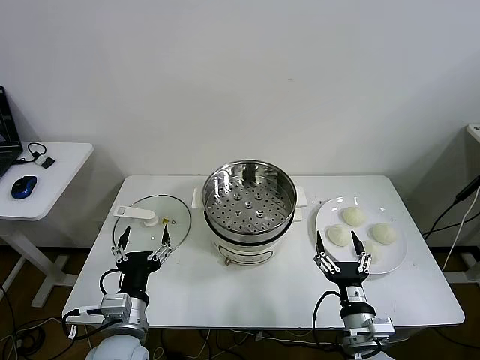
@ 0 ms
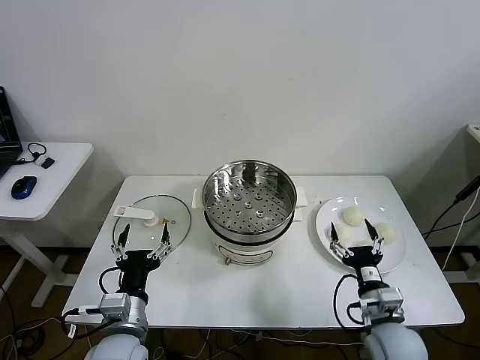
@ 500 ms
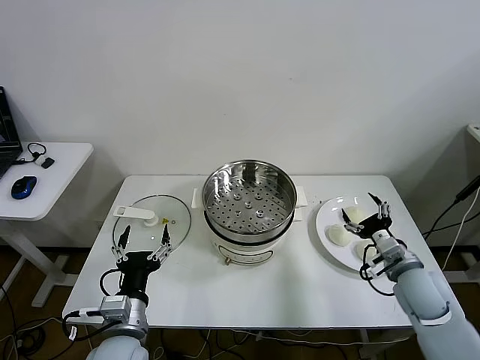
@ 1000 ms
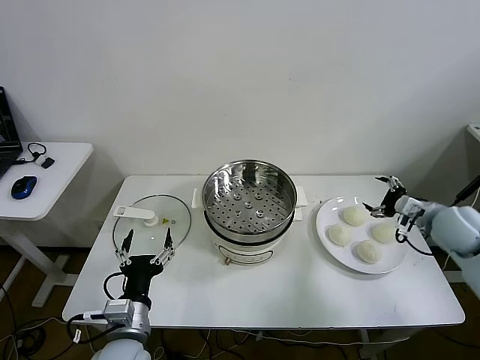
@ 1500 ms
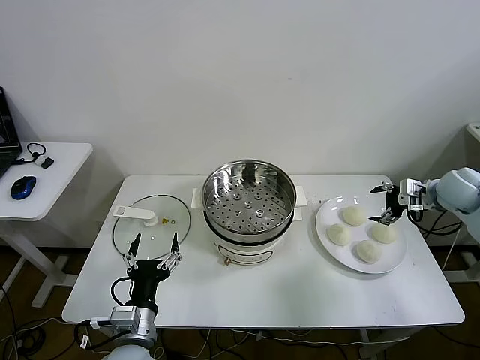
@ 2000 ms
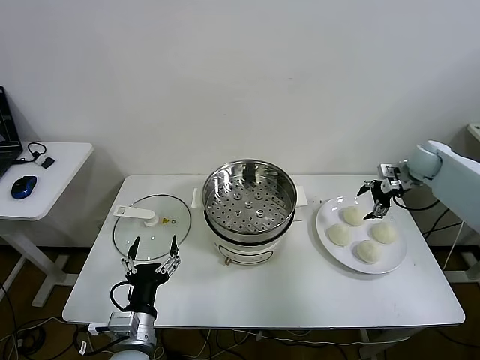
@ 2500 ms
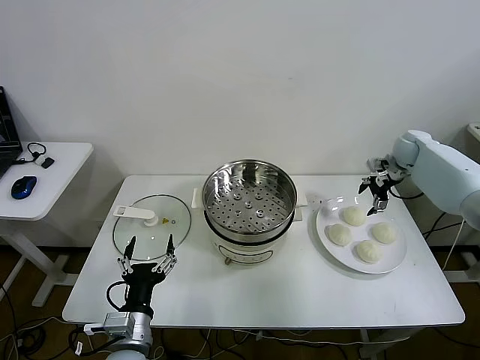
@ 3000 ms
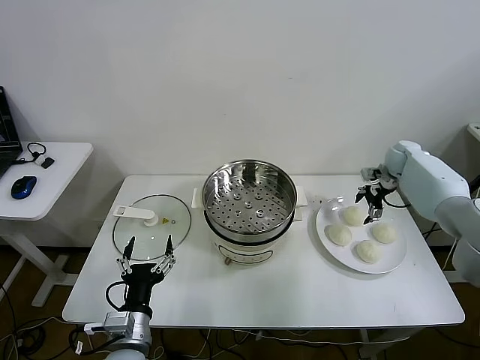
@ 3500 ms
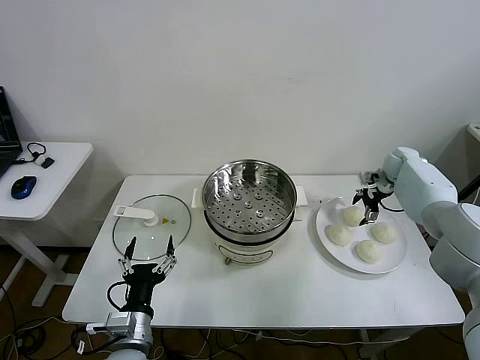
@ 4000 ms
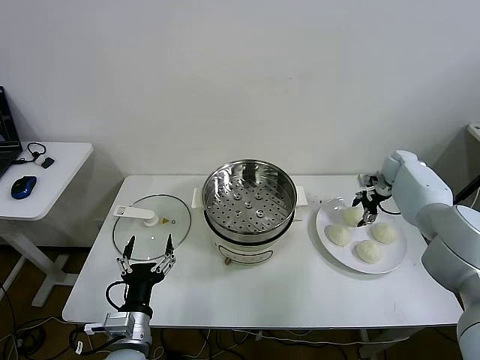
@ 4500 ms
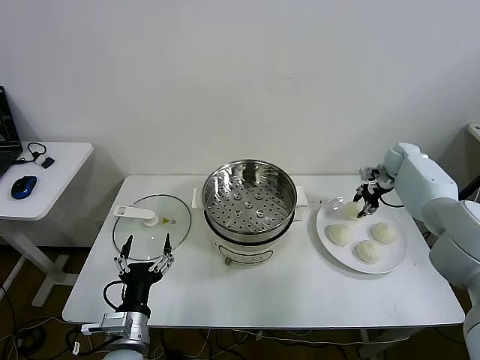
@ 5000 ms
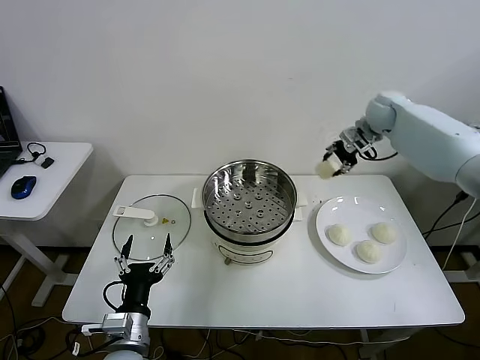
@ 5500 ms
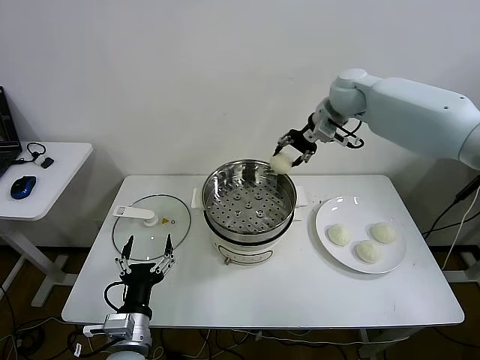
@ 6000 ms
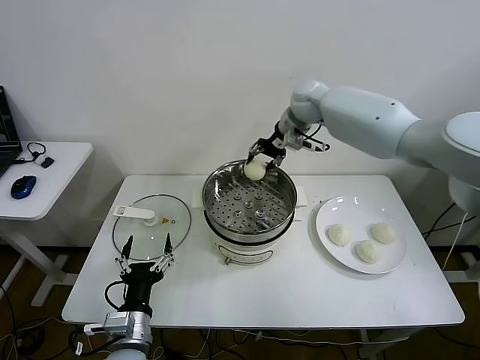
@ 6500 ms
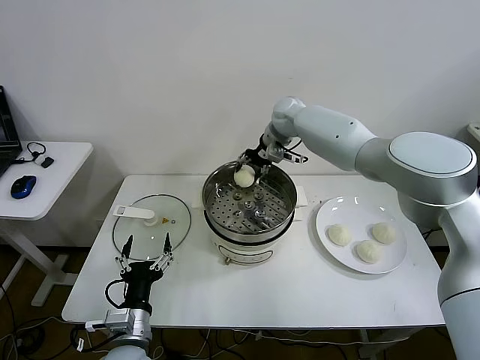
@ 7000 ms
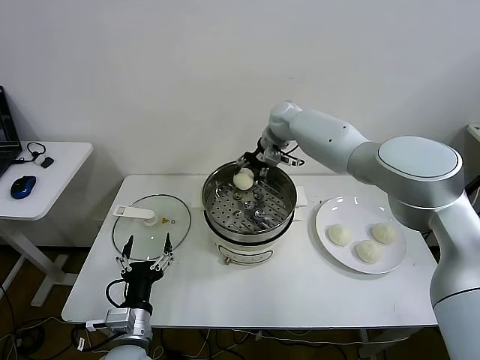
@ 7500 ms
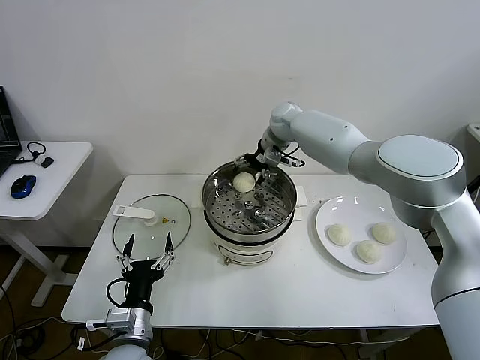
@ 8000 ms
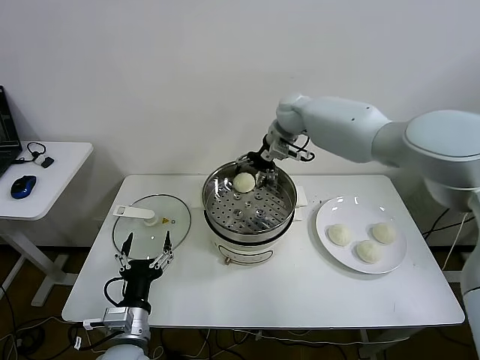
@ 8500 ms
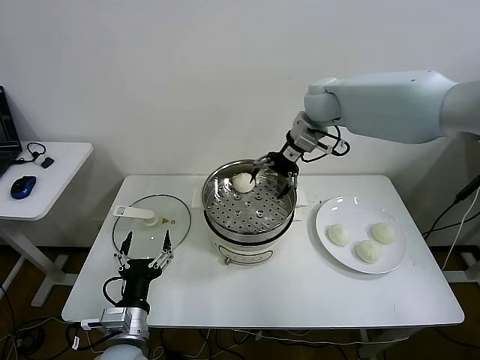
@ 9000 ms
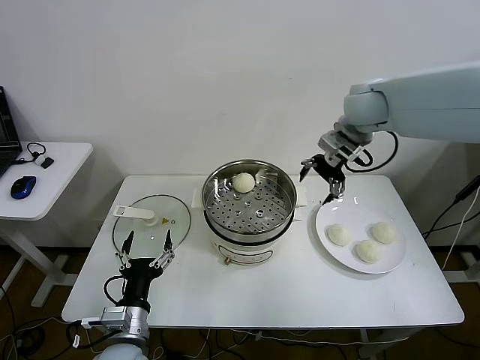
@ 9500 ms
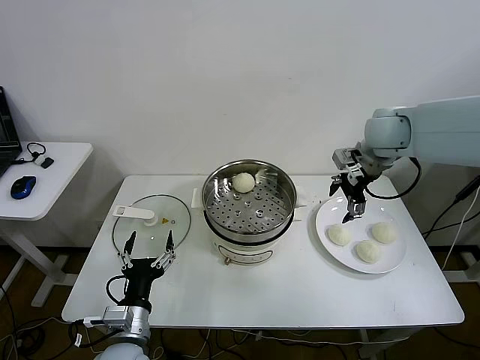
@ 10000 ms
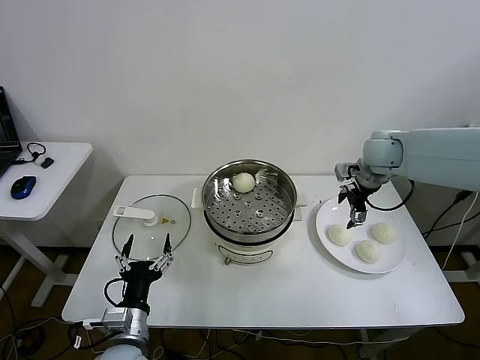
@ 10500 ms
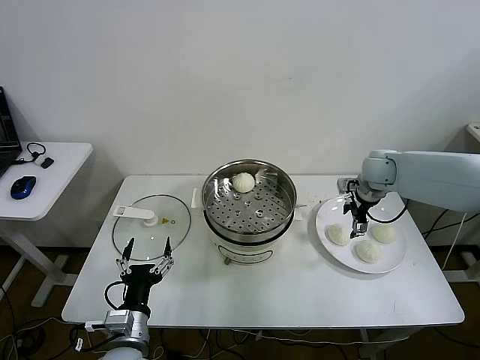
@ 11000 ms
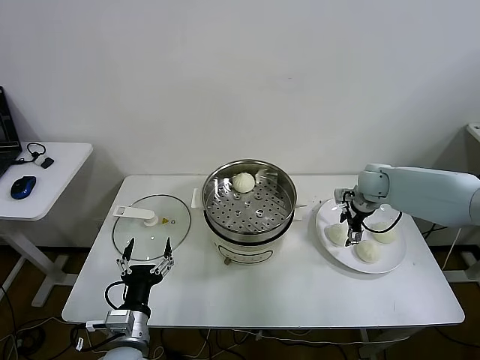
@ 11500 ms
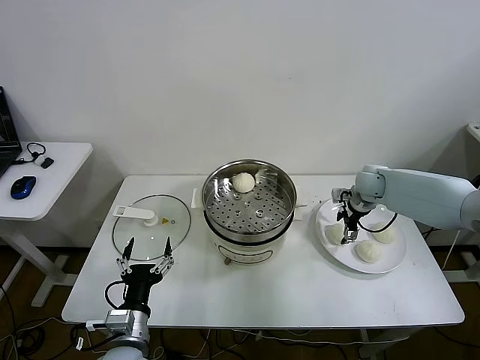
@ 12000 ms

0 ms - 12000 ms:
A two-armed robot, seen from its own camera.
Step, 0 ms - 4500 ms: Grasp the baozi in the plate with right gripper.
Step, 5000 ms - 8000 ms: Place the baozi on the steamer with right gripper.
2000 ms - 4000 ms: The right gripper travels forward and downward by about 15 cm.
4000 ms - 6000 ms: The right gripper travels to the left and upward by roughly 30 cm, and closes up.
6000 ms - 8000 ms: The right gripper goes about 15 cm to the left and downward, and opens its fingers.
8000 ms - 10000 ms: The right gripper is displaced to the right and backward by about 25 cm.
10000 ms - 12000 ms: The right gripper goes some 20 cm downward.

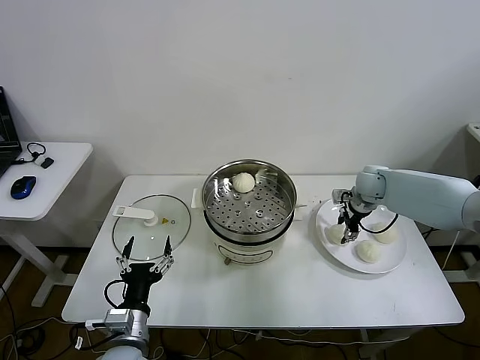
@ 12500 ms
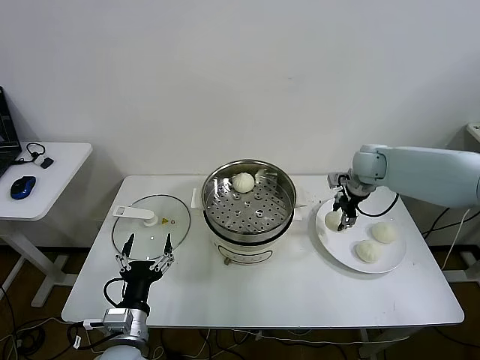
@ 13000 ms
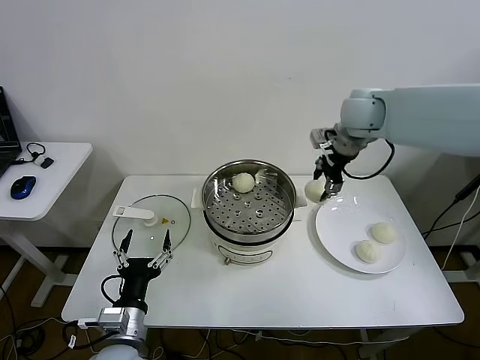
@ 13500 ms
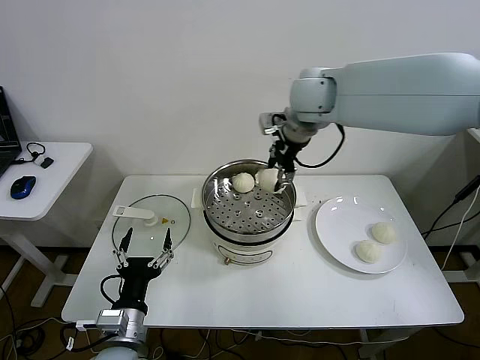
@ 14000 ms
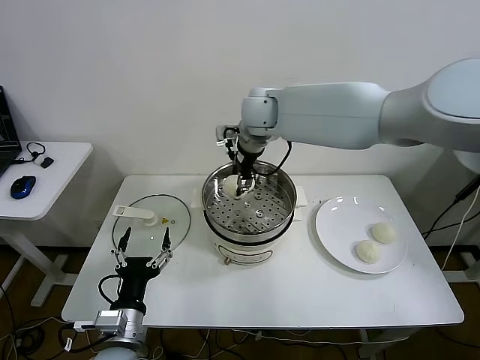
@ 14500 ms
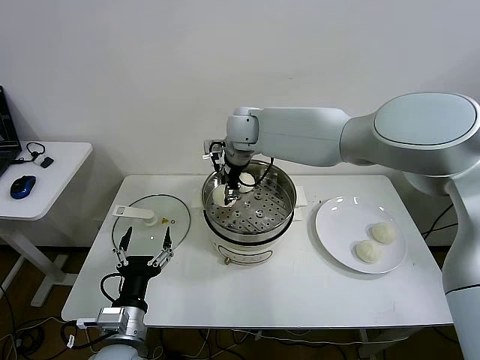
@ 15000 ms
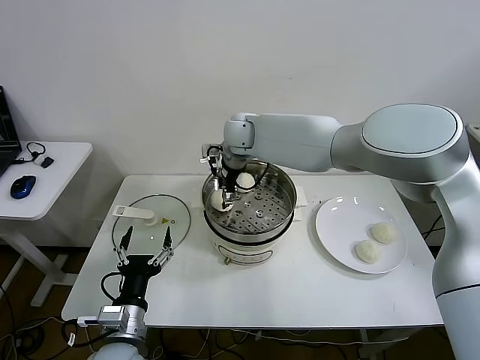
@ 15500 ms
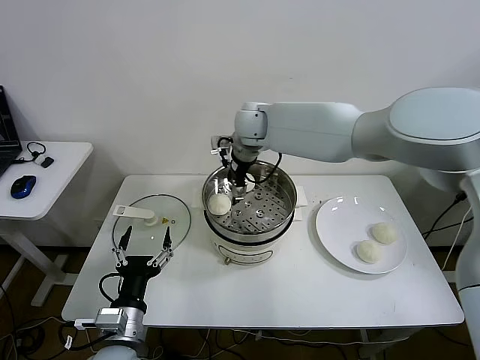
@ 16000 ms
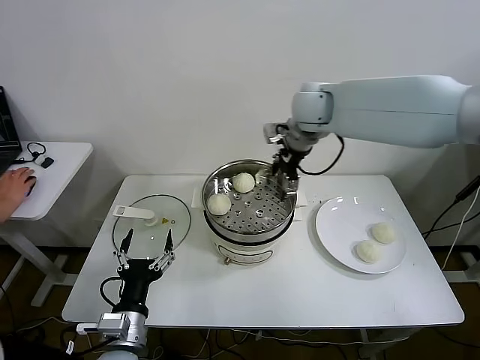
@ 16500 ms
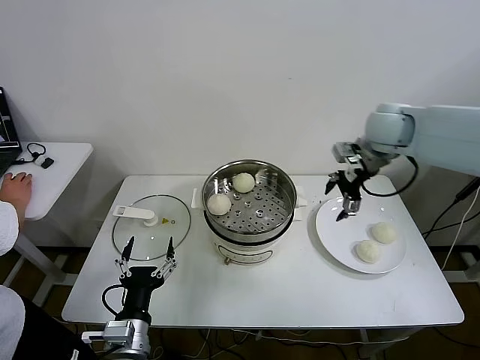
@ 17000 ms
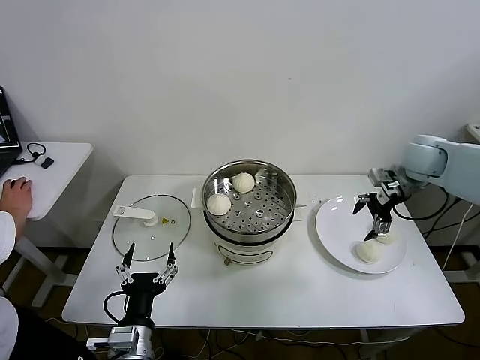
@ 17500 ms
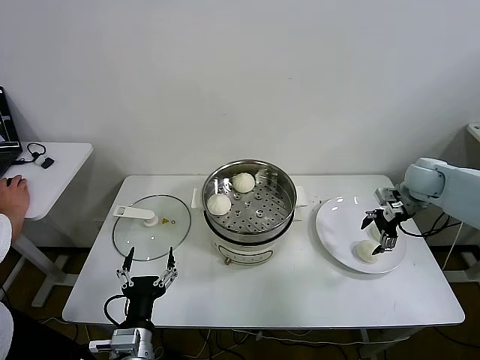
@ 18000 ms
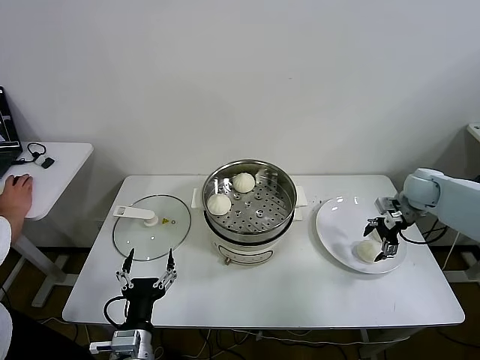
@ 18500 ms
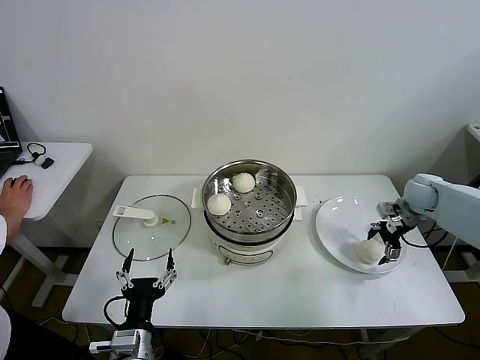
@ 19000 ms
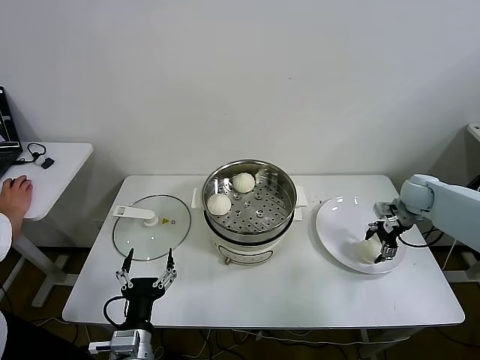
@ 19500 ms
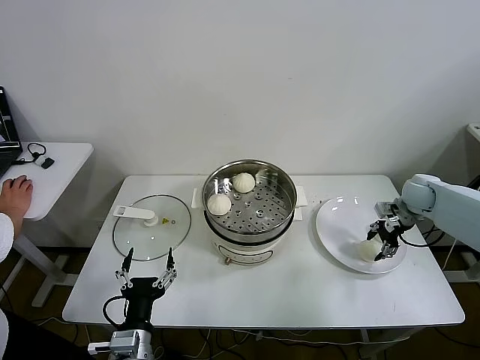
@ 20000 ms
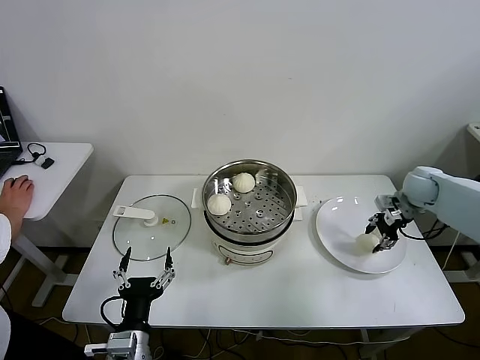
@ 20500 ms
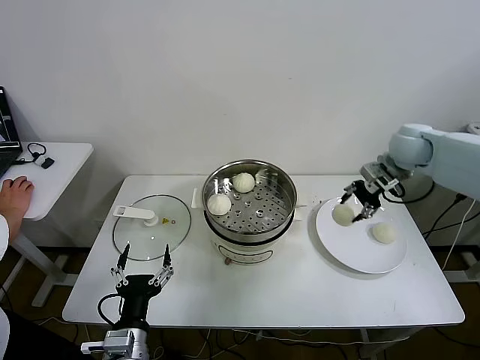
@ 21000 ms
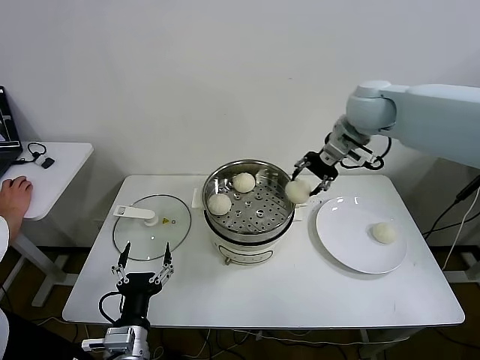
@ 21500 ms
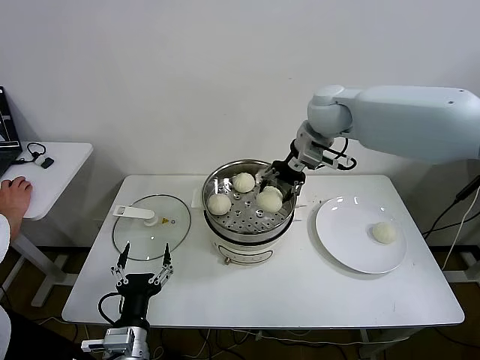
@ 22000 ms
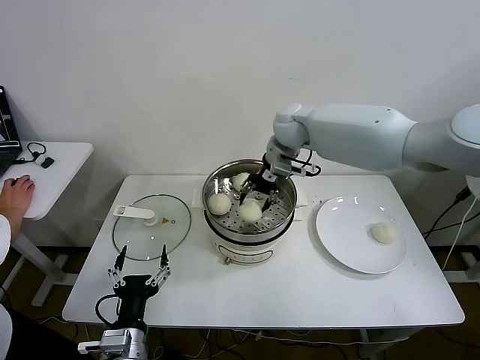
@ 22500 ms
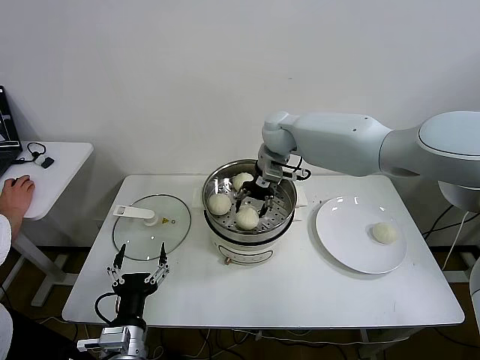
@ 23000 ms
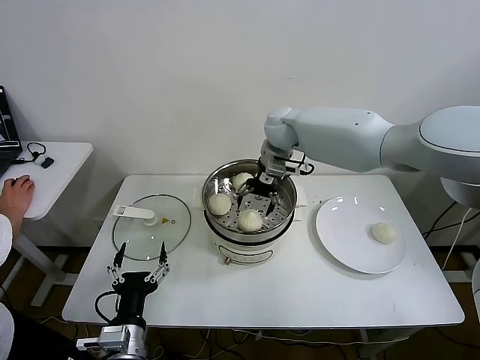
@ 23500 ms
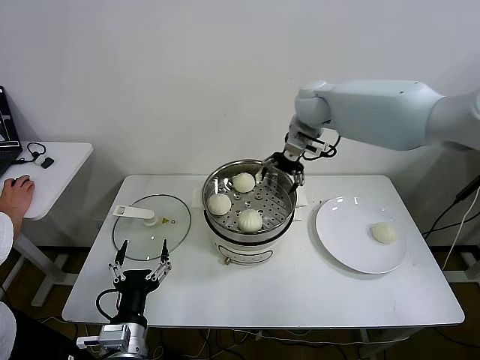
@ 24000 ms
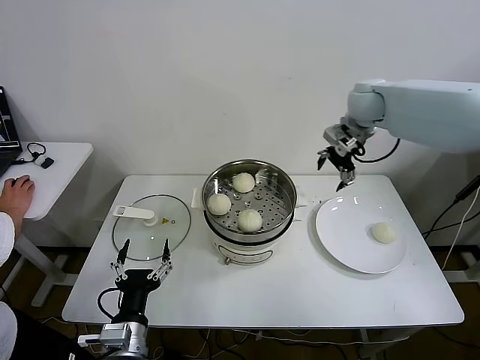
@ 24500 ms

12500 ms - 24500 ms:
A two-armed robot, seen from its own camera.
Step, 13000 ms - 15500 ms: Place the baozi on the steamer with right gripper.
Step, 16500 ms - 20000 ms: Grasp the baozi in the plate with right gripper.
Step, 20500 ms - 23500 ms: Place the baozi on the steamer with right gripper.
12500 ms - 14500 ms: The right gripper shifts approximately 35 cm to the left and upward.
14500 ms - 16500 ms: The right gripper goes some 10 cm to the right, and opens.
16500 ms - 18500 ms: The right gripper travels to the right and downward by some 35 cm.
18500 ms - 20500 ms: The right gripper closes.
20500 ms - 22500 ms: The right gripper moves to the left and upward, approximately 35 cm.
22500 ms - 24500 ms: The right gripper travels to the right by some 15 cm, and opens.

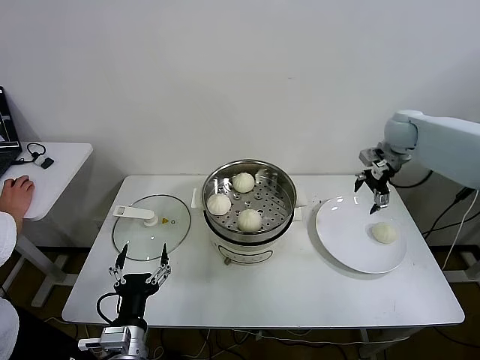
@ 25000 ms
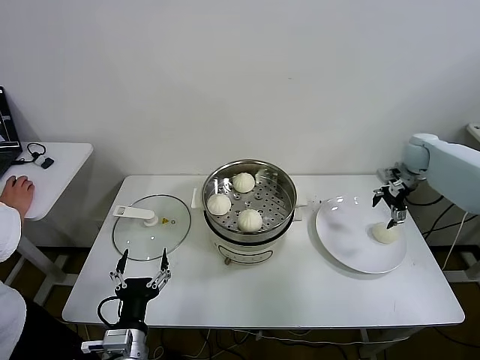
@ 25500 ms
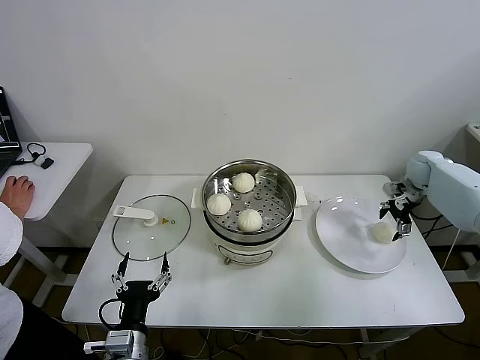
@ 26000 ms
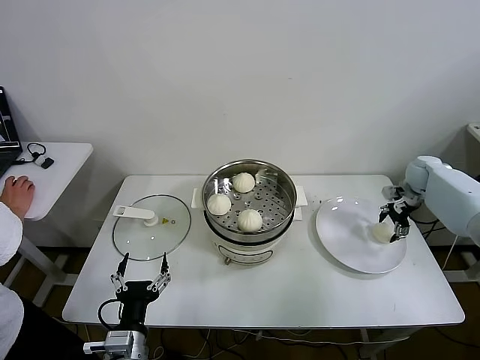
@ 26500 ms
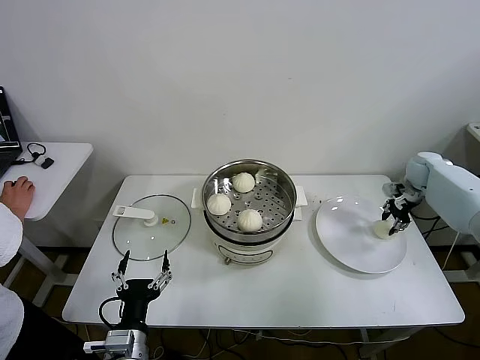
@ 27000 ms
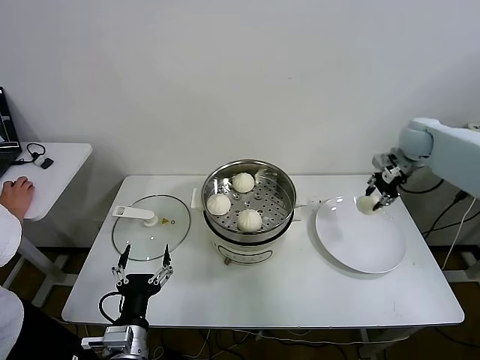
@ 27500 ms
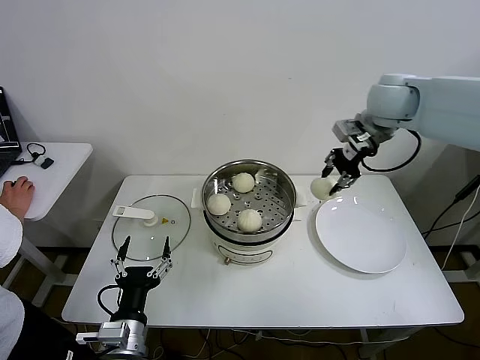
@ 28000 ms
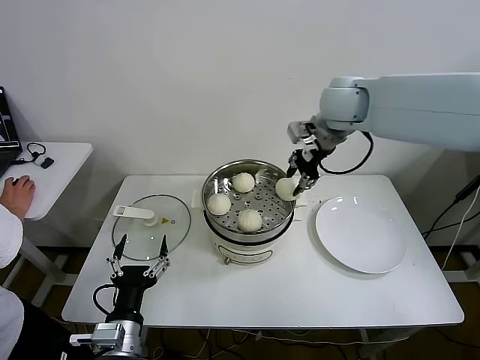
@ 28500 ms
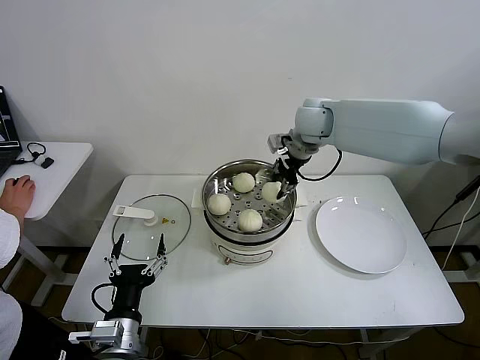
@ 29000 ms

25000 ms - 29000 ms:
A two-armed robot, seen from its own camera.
Step, 25000 ms - 26500 ms: Grasp the baozi in the plate with right gripper.
25000 ms - 27000 ms: The right gripper goes approximately 15 cm downward and to the right, and closes.
27000 ms - 29000 ms: The right gripper travels to the left and upward by approximately 40 cm.
